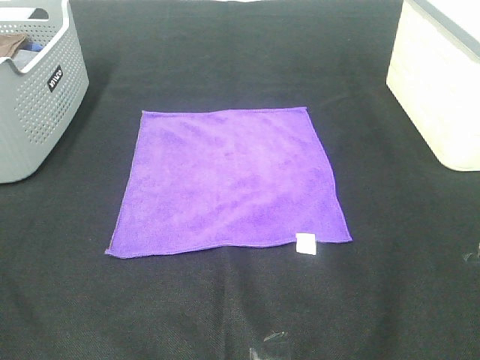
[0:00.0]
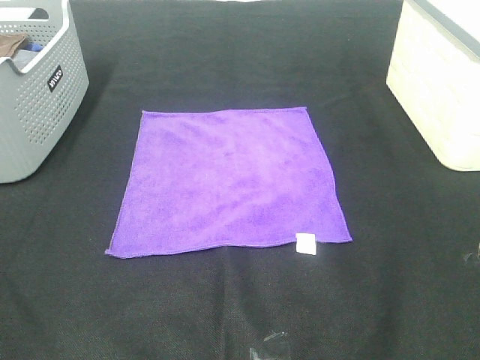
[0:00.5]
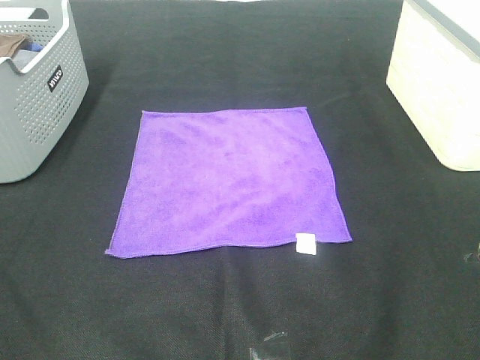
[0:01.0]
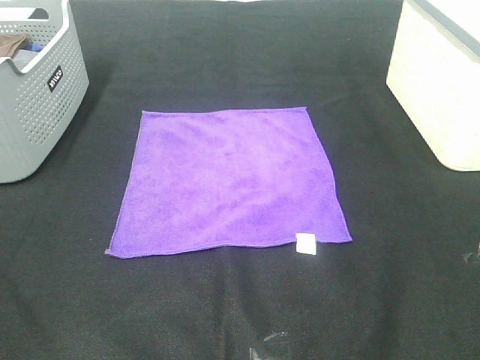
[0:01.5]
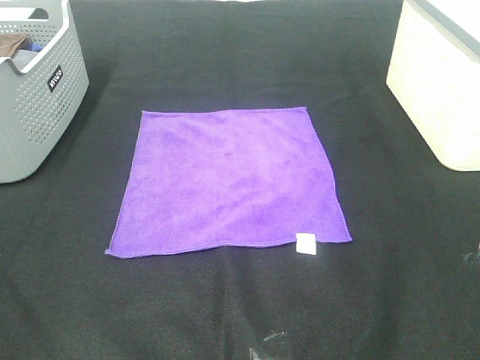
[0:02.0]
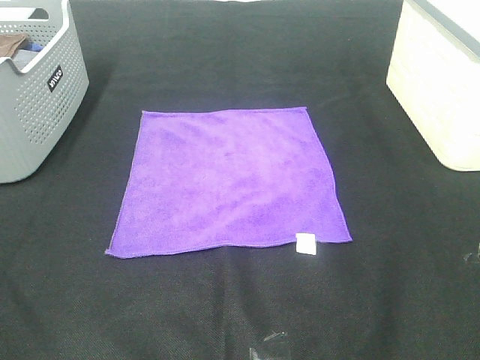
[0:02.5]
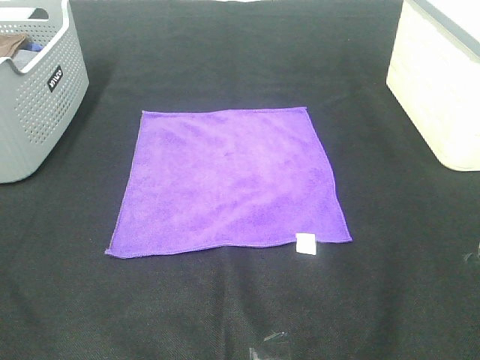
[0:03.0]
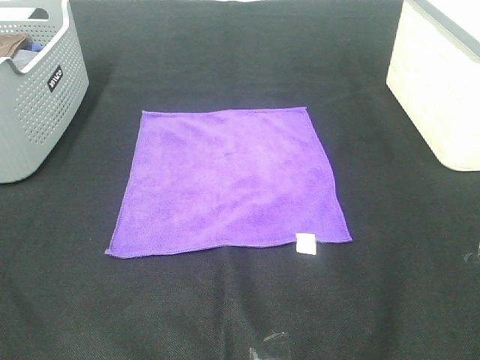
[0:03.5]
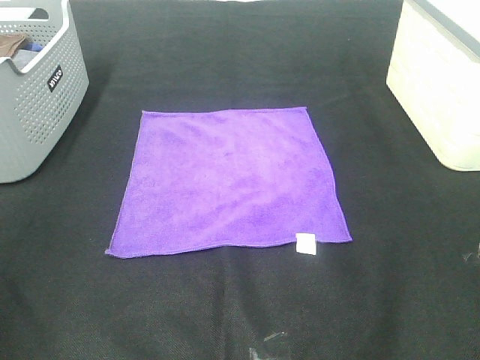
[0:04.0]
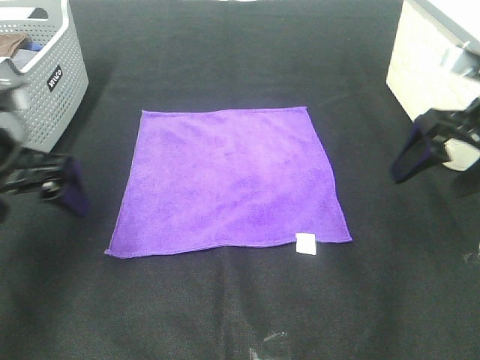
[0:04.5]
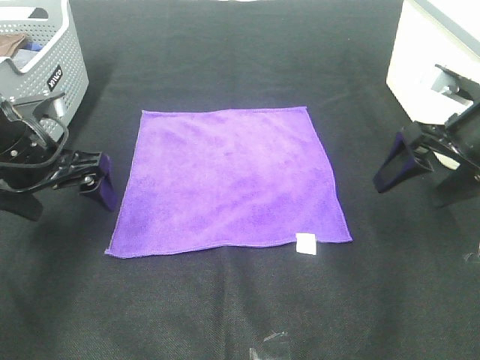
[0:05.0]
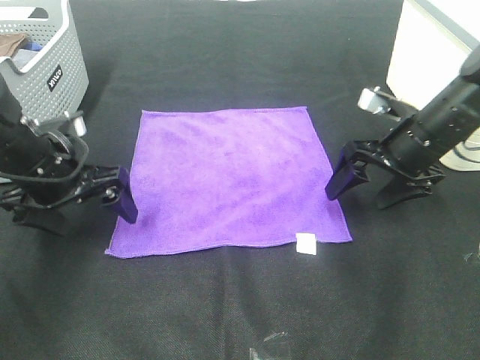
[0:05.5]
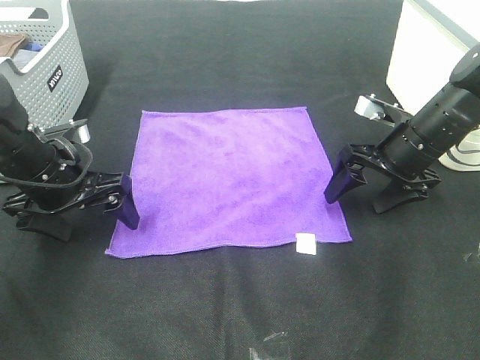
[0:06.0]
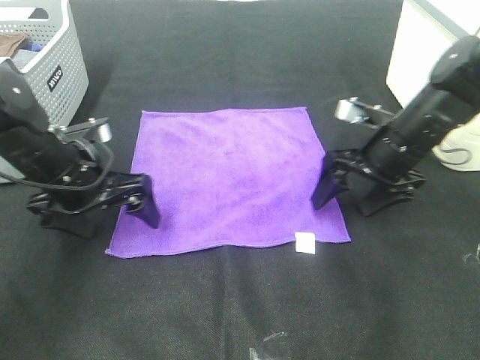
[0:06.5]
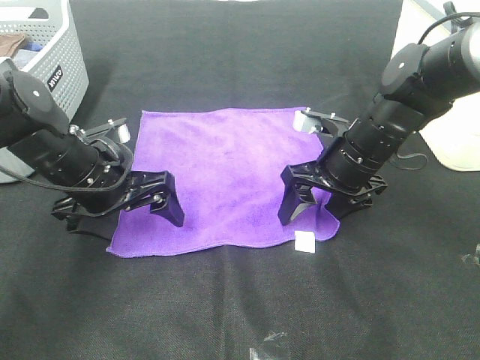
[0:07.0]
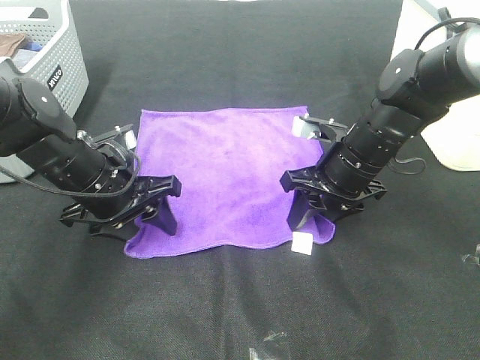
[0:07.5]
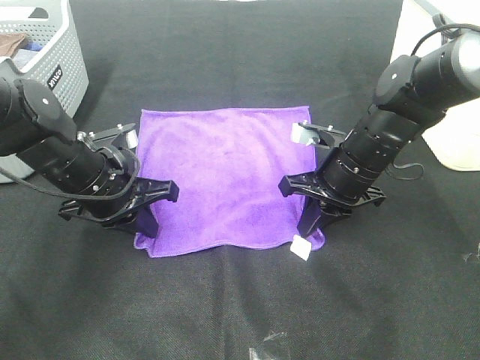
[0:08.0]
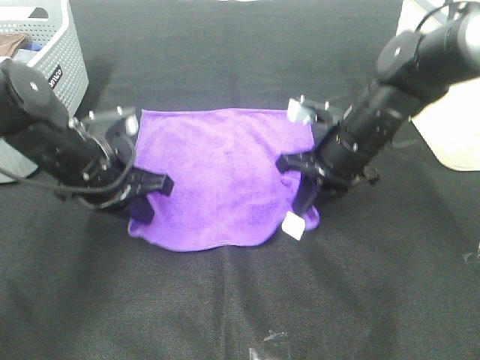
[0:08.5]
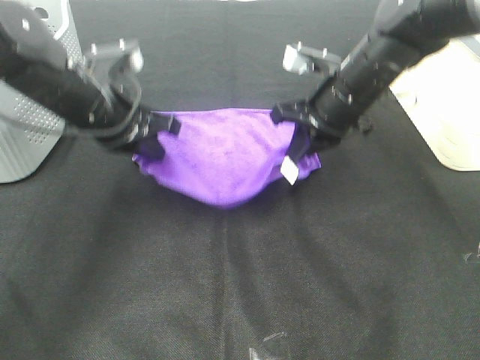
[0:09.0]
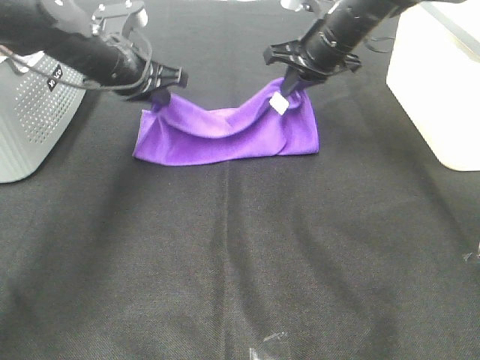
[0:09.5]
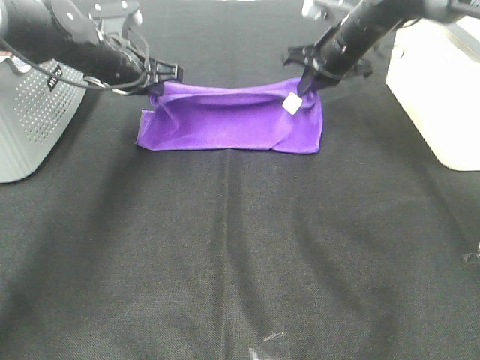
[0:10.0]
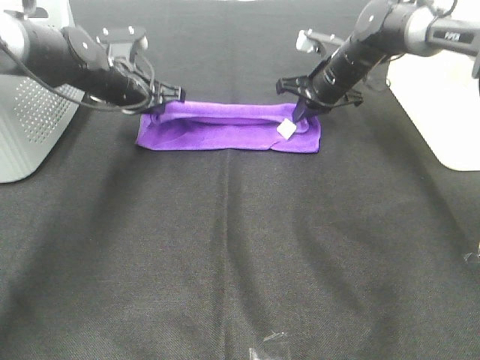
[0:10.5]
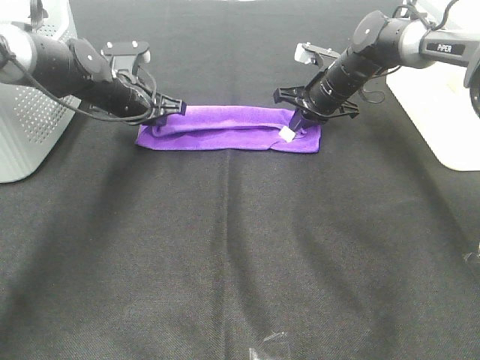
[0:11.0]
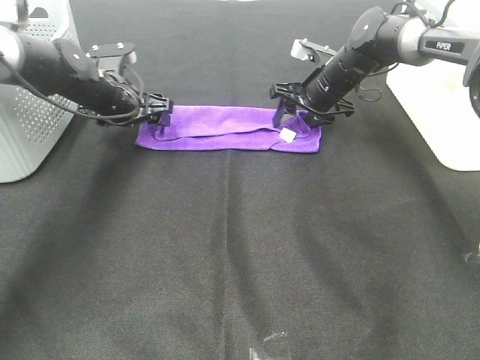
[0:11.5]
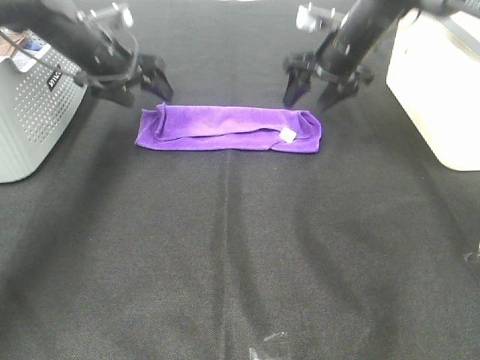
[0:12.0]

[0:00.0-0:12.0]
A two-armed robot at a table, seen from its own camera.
Task of the whole recording: Fold towels.
Step, 0:00.0 to 0:07.5: Left hand: grab the bottom left corner of purple towel.
Step, 0:00.0 to 0:07.5: Right hand: grab the bottom right corner of purple towel.
Step, 0:08.0 to 0:10.5: Left hand: fold the purple towel up.
Step, 0:08.0 to 0:10.5: Right hand: fold the purple towel up.
0:00.0 to 0:02.0: Neither gripper changes place.
0:04.0 to 0:06.0: The right gripper is displaced forward and downward by approximately 30 cm. Meanwhile the left gripper shifts roughly 30 cm forward, downward and to the right.
0:06.0 to 0:08.0: The left gripper heads to the right, covering approximately 5 cm, and closes. The right gripper travels to the left by about 10 cm, and closes up.
0:08.0 to 0:10.0: The grippers both shift forward by roughly 15 cm.
0:10.0 to 0:12.0: The left gripper opens, while the right gripper travels downward and back again, some 5 cm each way, and opens its fingers.

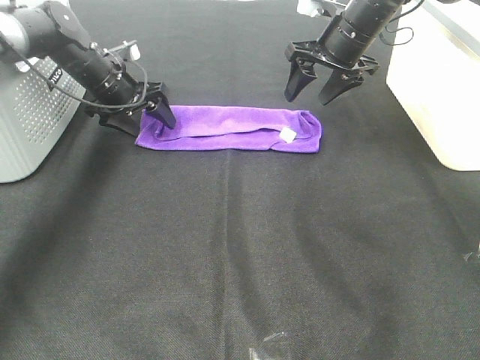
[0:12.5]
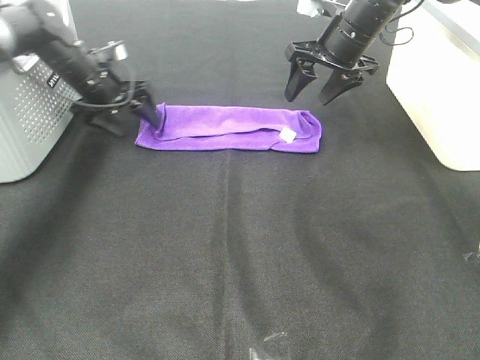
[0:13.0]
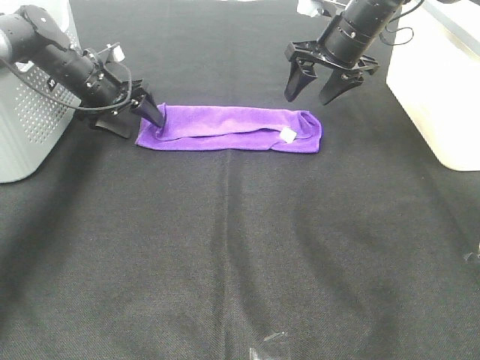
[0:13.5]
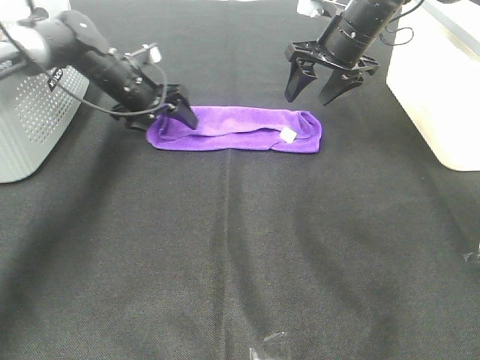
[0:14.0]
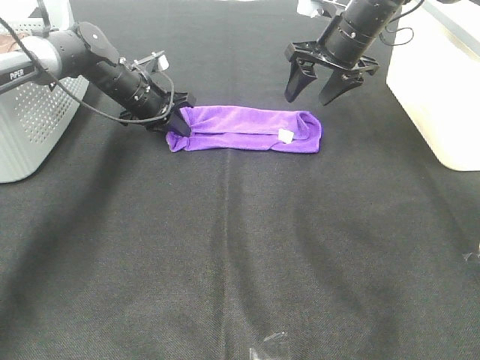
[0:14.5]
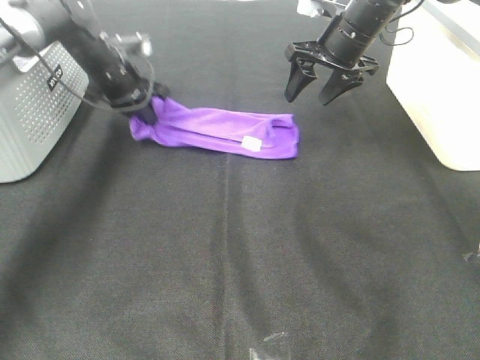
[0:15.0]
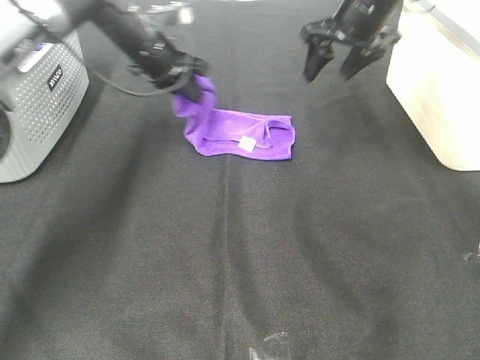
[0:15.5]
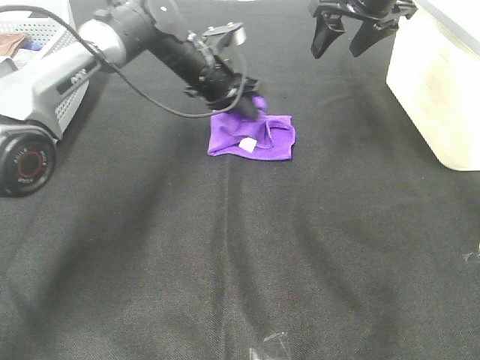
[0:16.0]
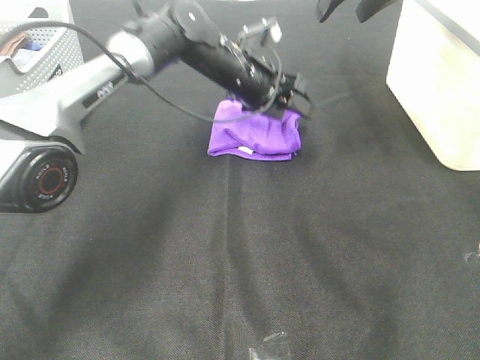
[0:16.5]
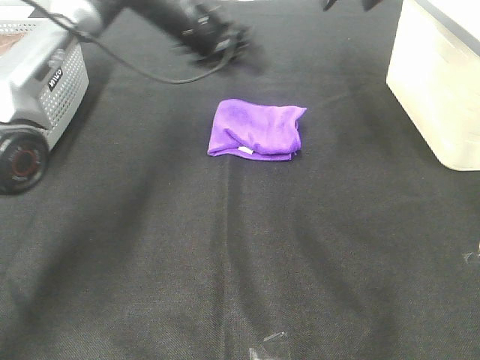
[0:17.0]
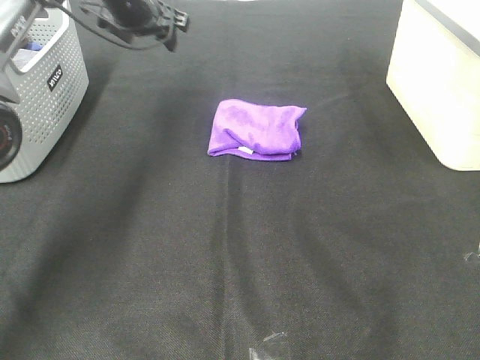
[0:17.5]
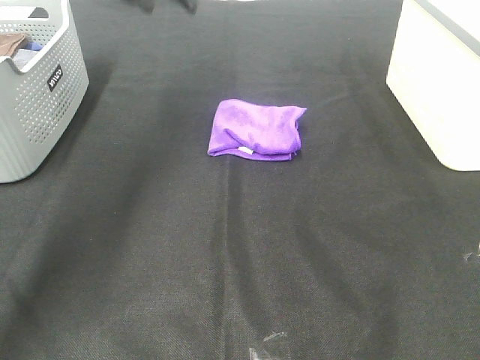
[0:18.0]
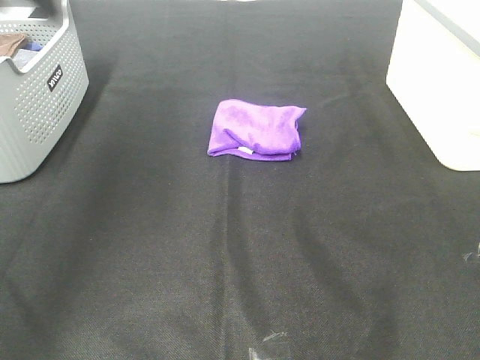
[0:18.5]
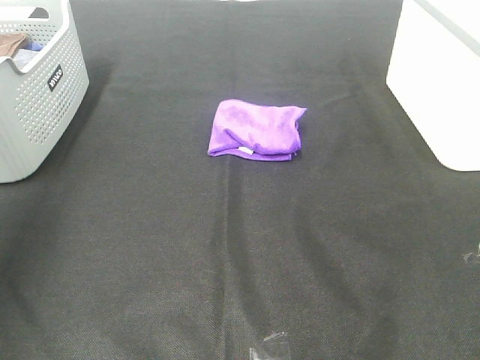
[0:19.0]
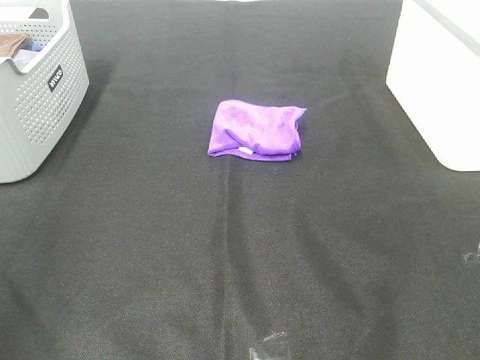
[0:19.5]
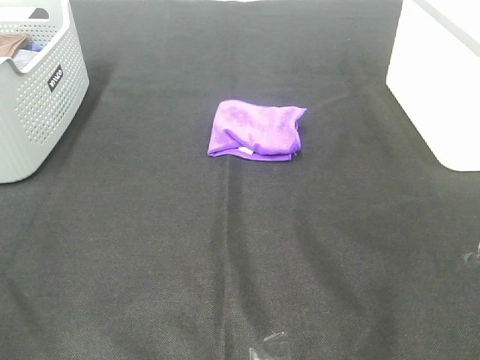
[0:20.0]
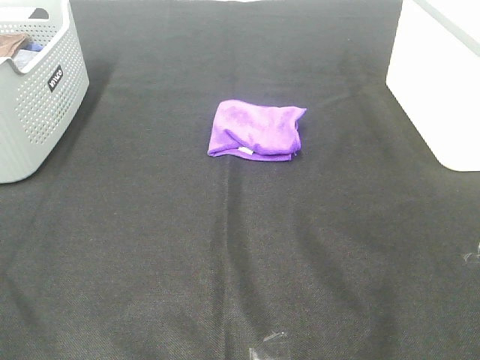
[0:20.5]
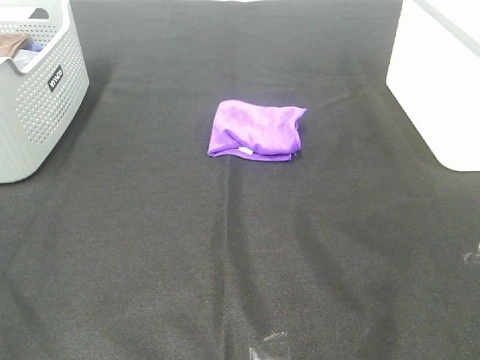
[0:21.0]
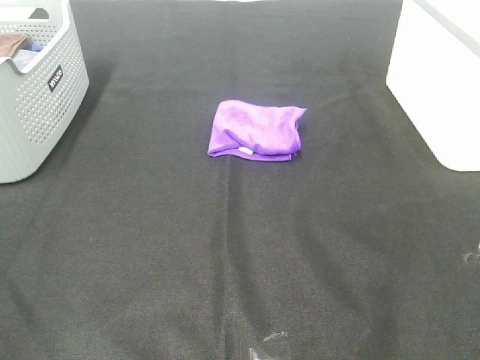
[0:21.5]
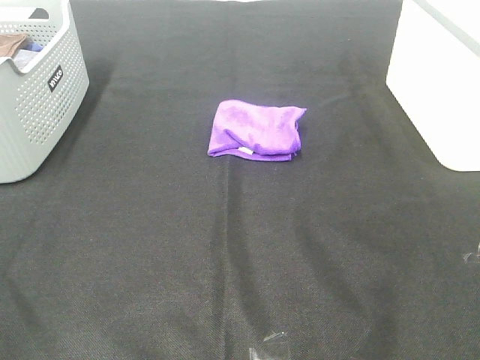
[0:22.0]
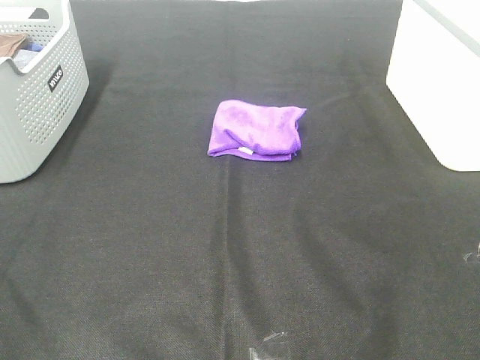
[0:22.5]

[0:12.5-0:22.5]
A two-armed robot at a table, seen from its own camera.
Task of the whole recording: Fold towels.
Step, 0:12.5 to 0:16.0: Left hand: fold the purple towel from left to right.
0:12.5 to 0:14.5: The left gripper ends up roughly 5 cm from where it was, and closes up.
0:14.5 to 0:16.5: The left gripper heads to the right and upward, covering roughly 20 cm, and opens. Meanwhile the right gripper shifts approximately 10 cm upward.
0:16.5 to 0:18.5: The right gripper shifts approximately 30 cm backward; the left gripper shifts about 35 cm upward, to the left and backward.
0:18.5 to 0:20.5: The left gripper travels backward by about 35 cm.
0:20.5 to 0:22.5: Both grippers stay about where they are.
